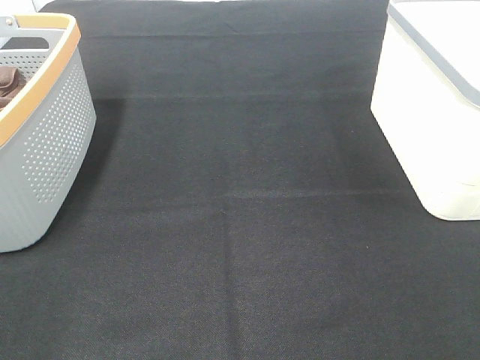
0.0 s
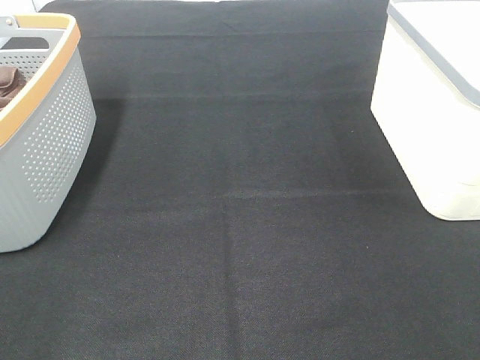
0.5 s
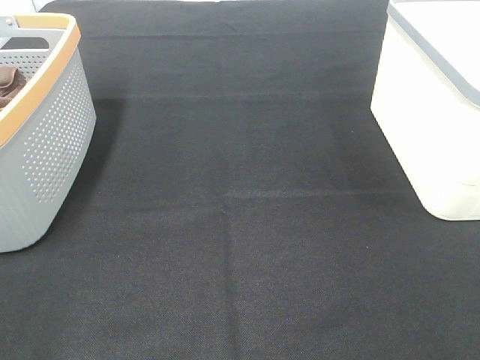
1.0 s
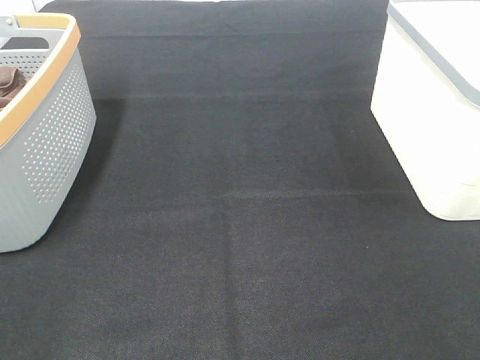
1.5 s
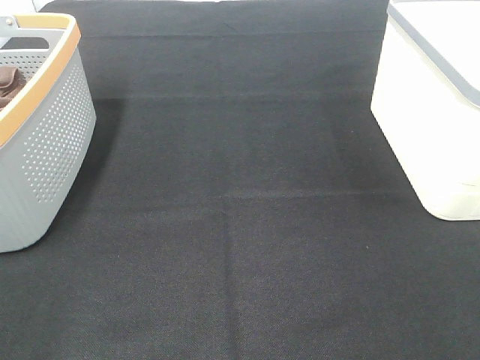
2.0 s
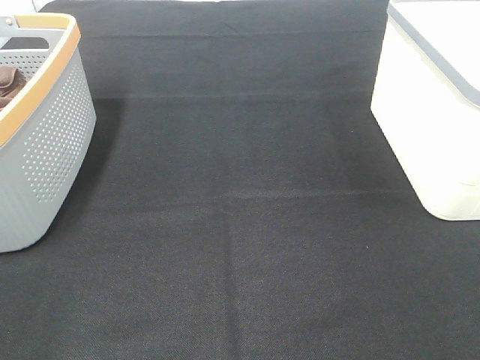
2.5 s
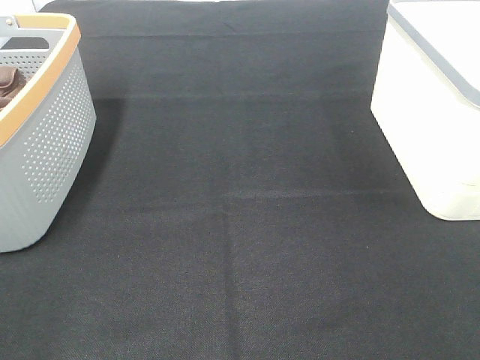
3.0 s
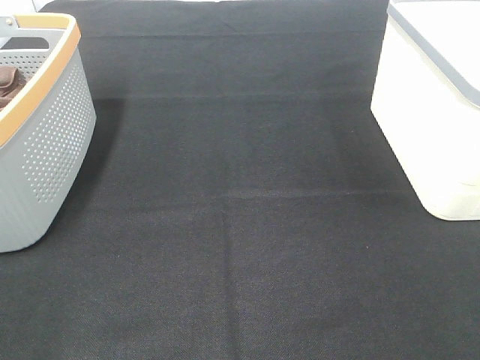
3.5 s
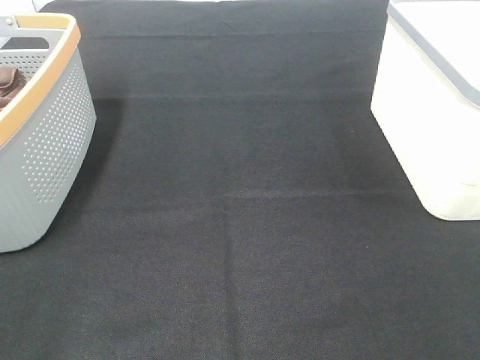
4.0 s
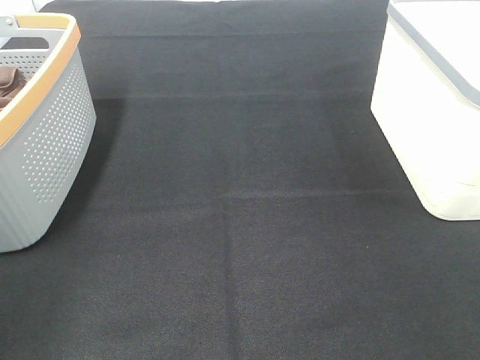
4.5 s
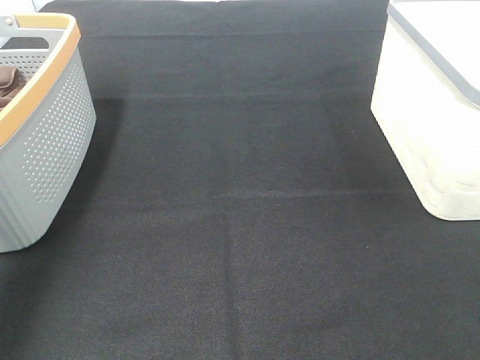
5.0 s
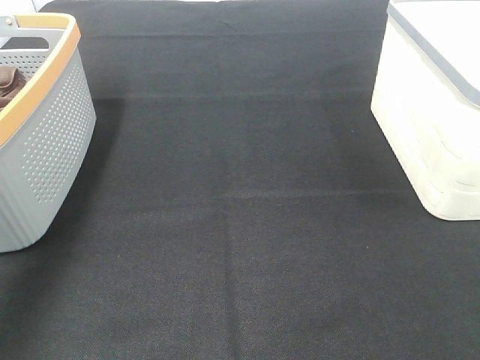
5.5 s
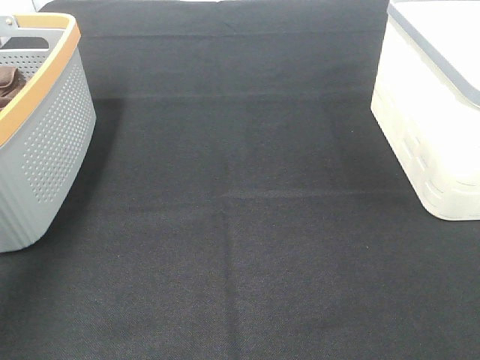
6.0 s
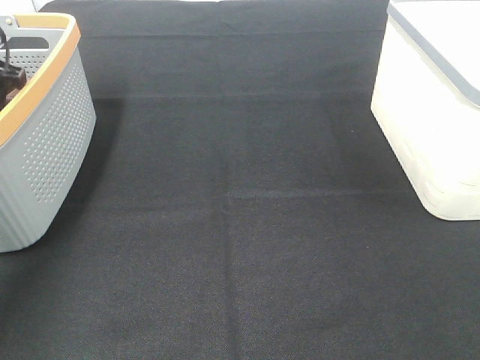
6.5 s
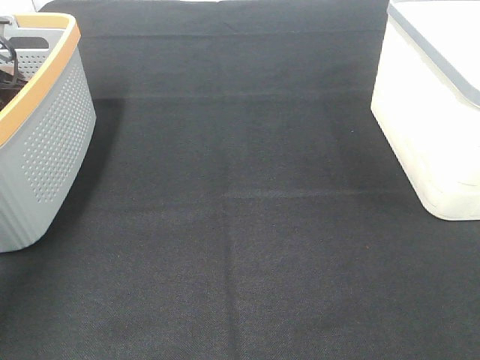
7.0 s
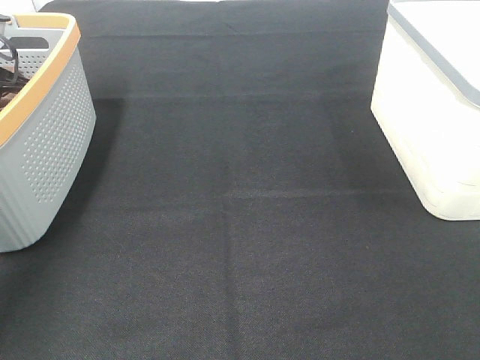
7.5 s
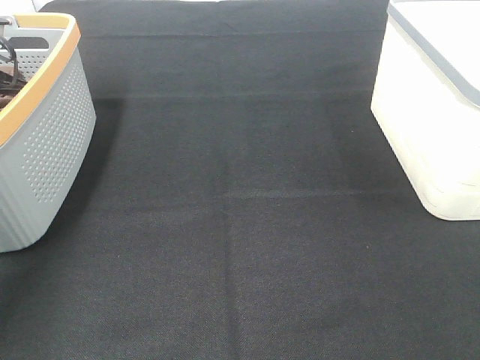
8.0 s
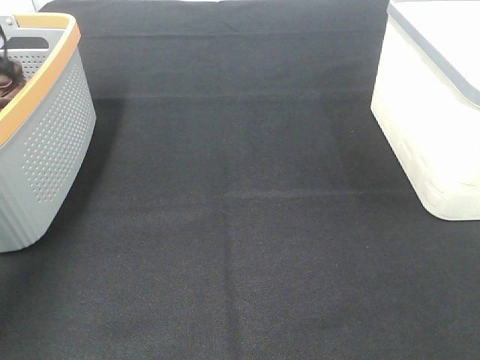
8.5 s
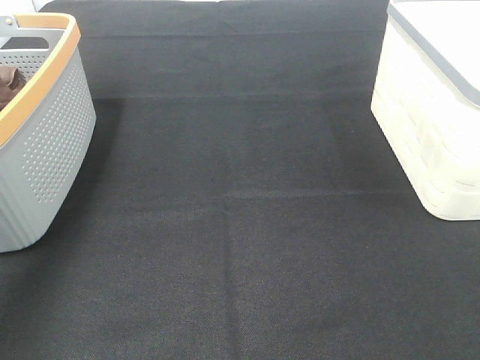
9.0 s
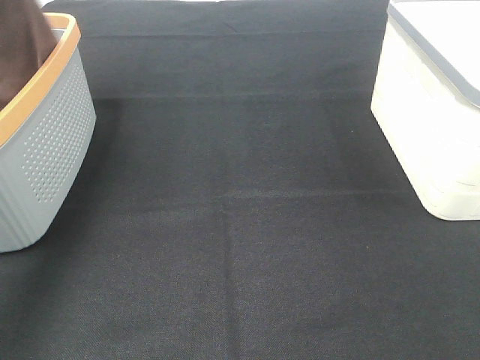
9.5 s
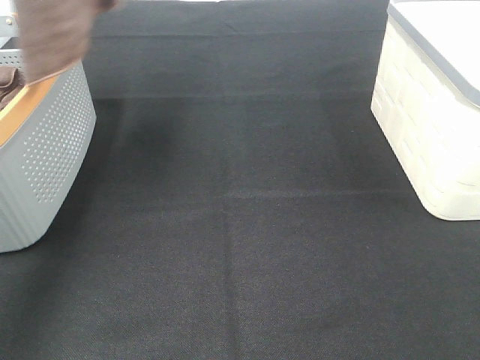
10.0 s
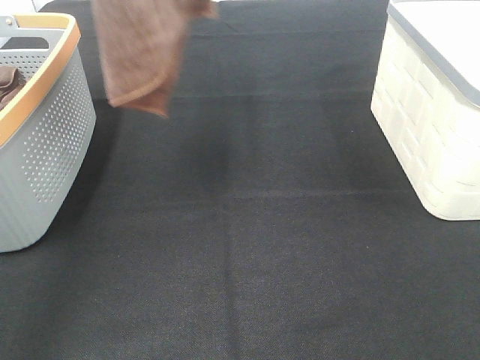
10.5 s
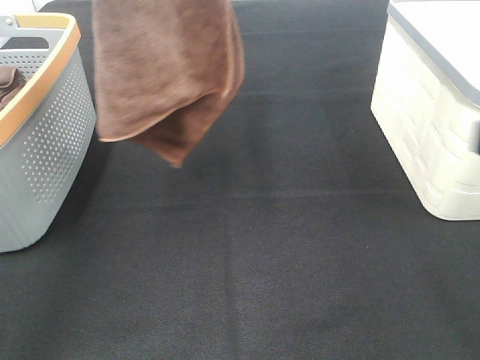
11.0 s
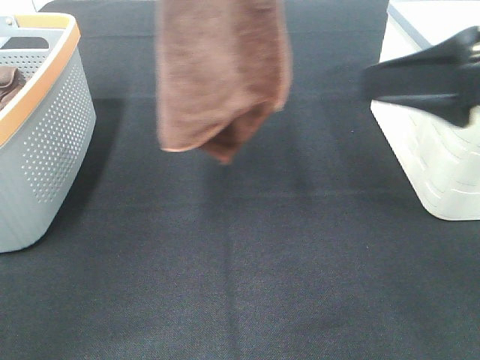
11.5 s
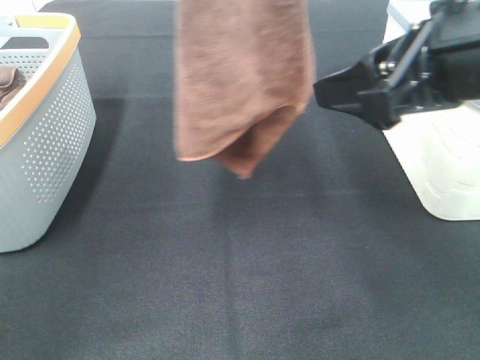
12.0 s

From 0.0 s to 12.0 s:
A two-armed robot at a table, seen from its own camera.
Task of the whole recording: Remove the towel and place it.
From 0.0 s to 2.0 s: Neither gripper changes place.
From 4.0 s to 6.0 s: The left gripper moves forward, approximately 40 cm.
From 8.0 s to 10.0 s: The left gripper goes approximately 35 cm upward.
From 10.0 s to 12.0 s: The left gripper is displaced to the right by approximately 10 cm. The right gripper goes about 25 cm forward and to the left.

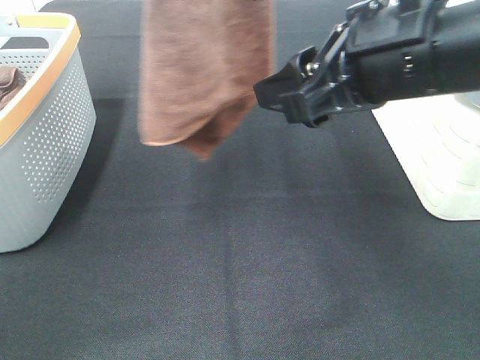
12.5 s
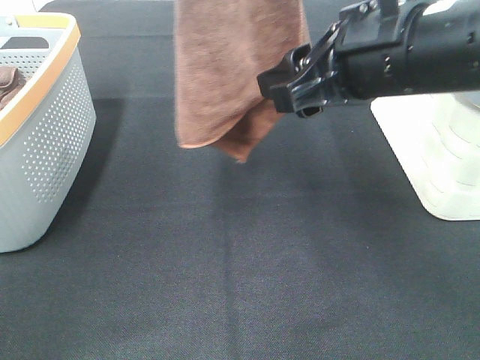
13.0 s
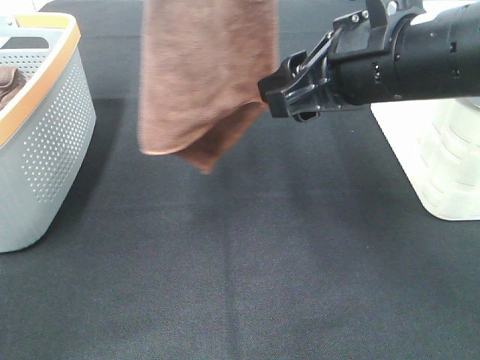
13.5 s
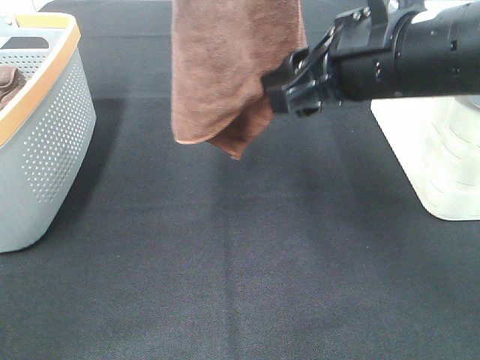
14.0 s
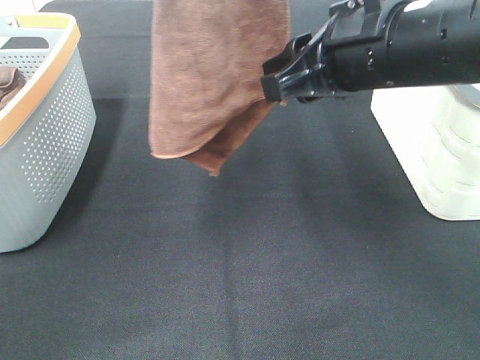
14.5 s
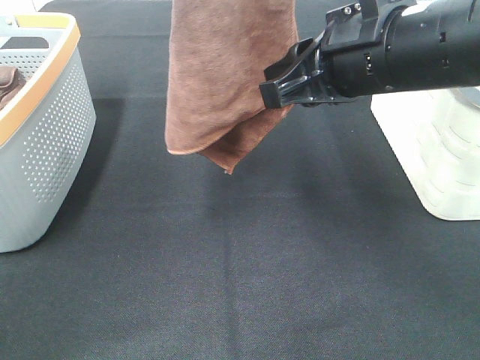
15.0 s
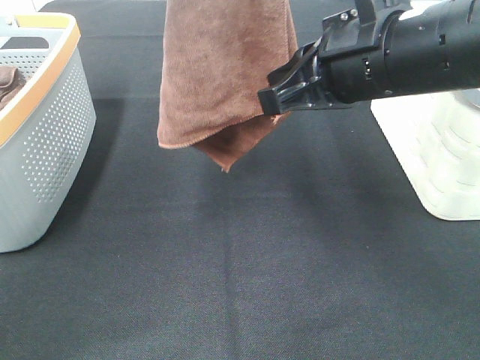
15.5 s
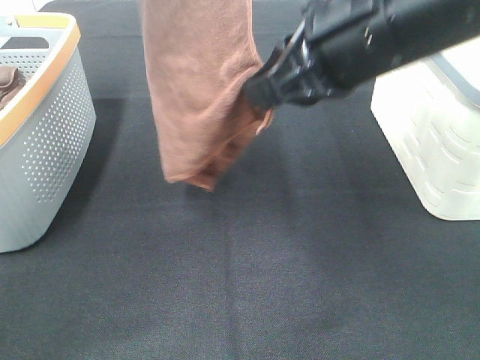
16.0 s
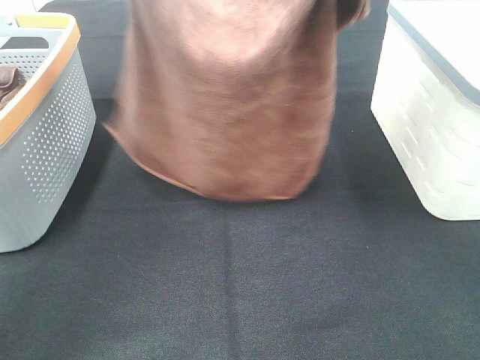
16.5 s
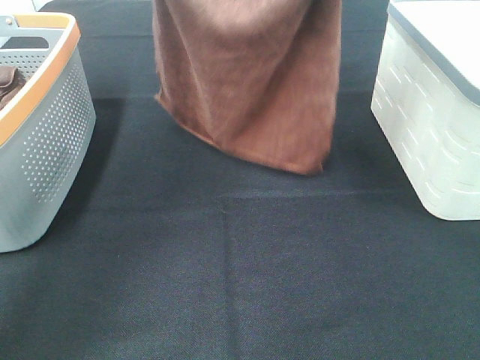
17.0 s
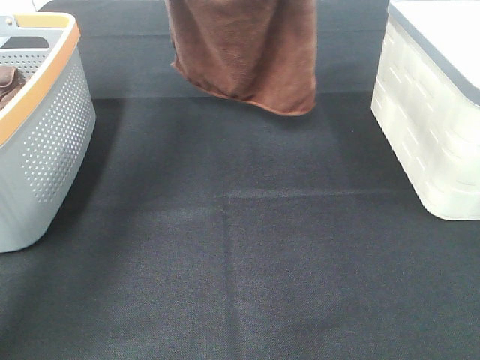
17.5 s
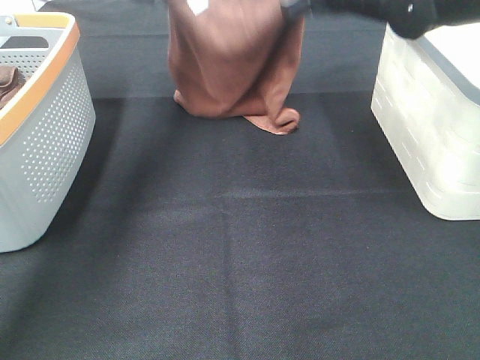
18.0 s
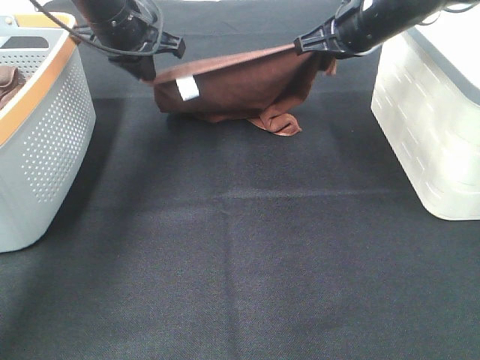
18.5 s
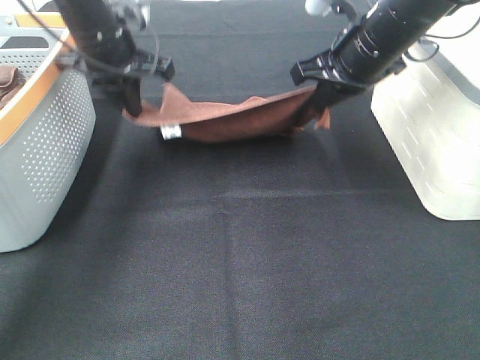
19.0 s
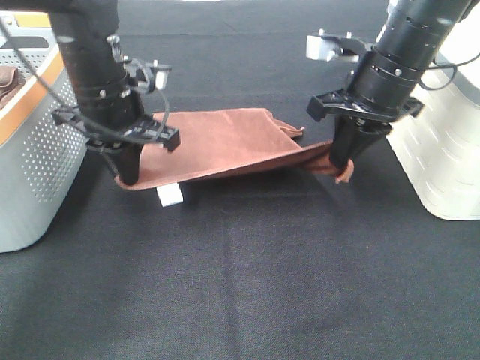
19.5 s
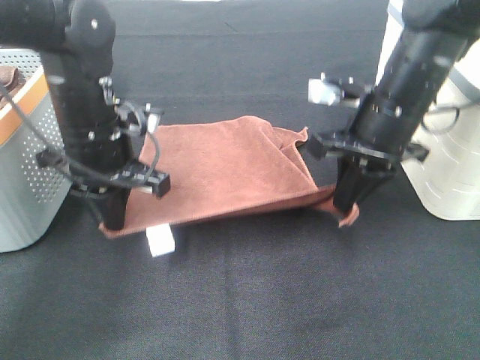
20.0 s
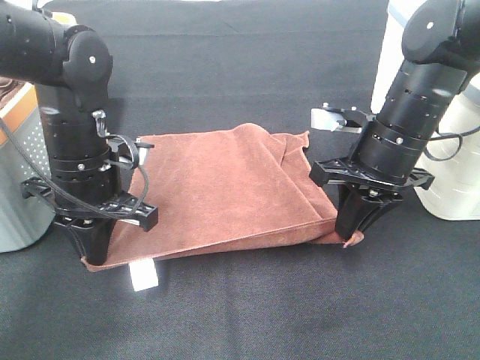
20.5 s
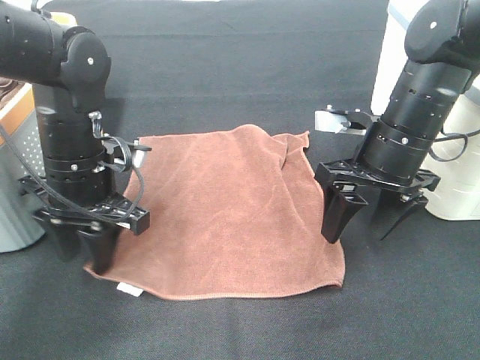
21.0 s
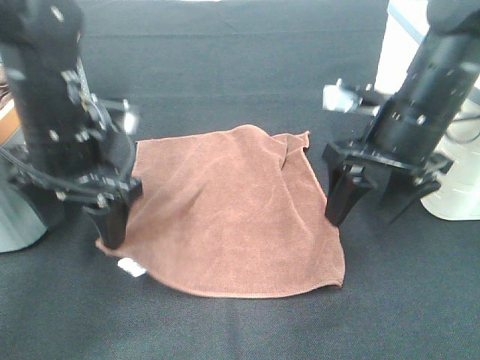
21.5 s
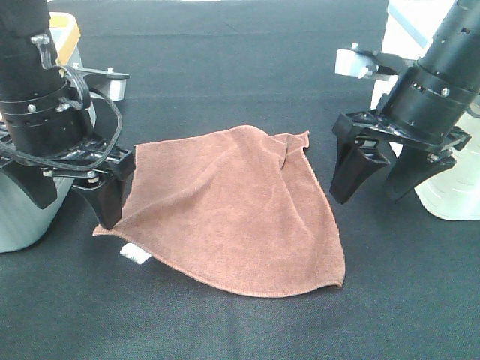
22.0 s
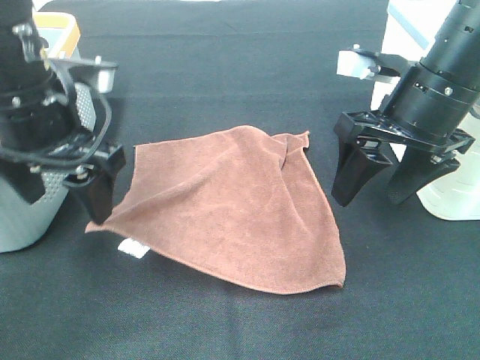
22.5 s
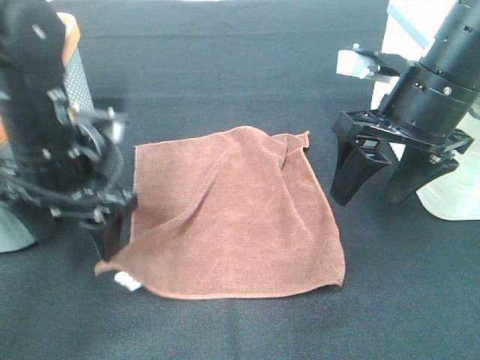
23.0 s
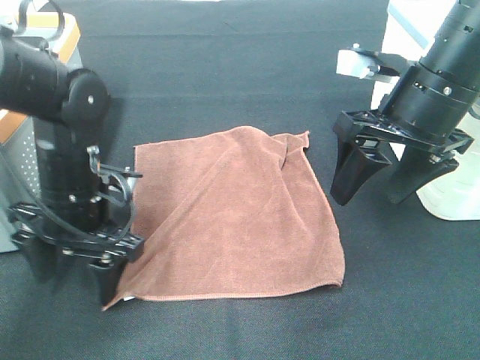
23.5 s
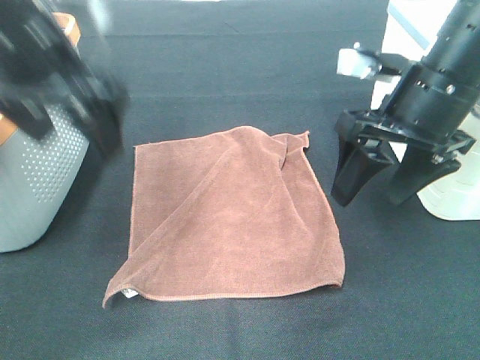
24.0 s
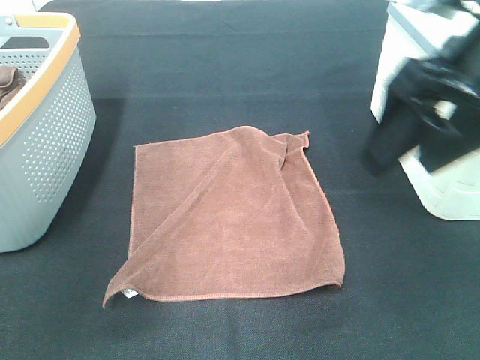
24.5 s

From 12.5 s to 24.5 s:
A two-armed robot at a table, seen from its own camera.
Task of the whole recording: Remove the towel and place it.
Step, from 13.5 s to 16.5 s: Right hand: spread the brown towel flat on the table.
Step, from 13.5 s to 19.0 s: Left hand: spread the brown towel flat on the table.
From 12.5 s to 14.5 s: The grippers make only small movements.
From 14.5 s to 16.5 s: The left gripper travels downward and forward by some 15 cm. Meanwhile the right gripper goes approximately 10 cm upward, and closes up.
From 16.5 s to 18.5 s: The left gripper heads downward and forward, covering approximately 20 cm; the right gripper is displaced forward and downward by approximately 20 cm.
From 18.5 s to 20.5 s: Both grippers travel together backward and downward, some 15 cm.
From 20.5 s to 22.5 s: The grippers both shift upward by some 10 cm. The right gripper opens its fingers, while the left gripper opens up.
From 22.5 s to 24.5 s: The right gripper goes some 10 cm upward and backward. The left gripper shifts approximately 20 cm upward and backward.

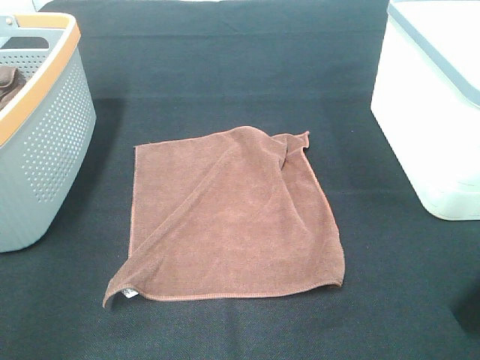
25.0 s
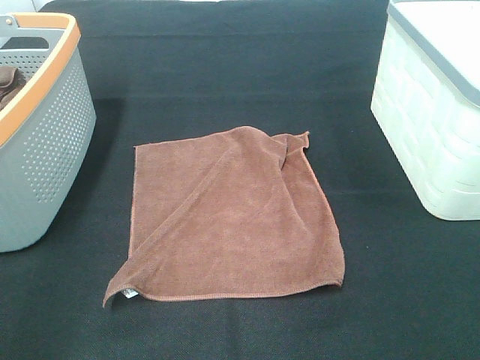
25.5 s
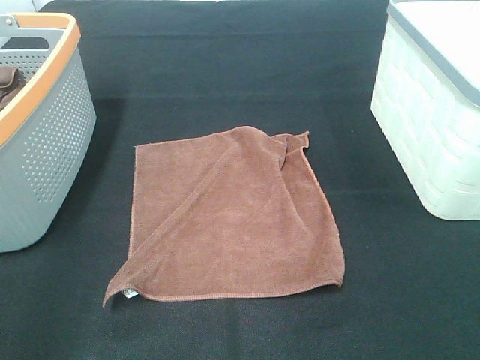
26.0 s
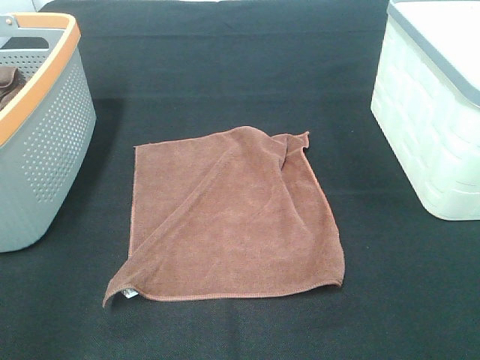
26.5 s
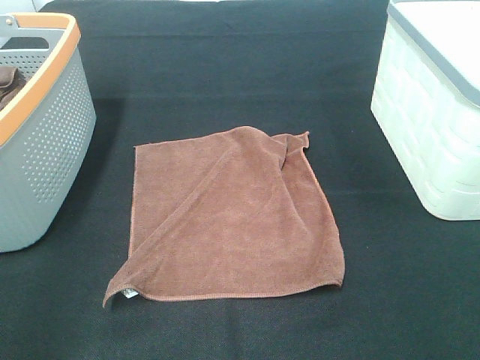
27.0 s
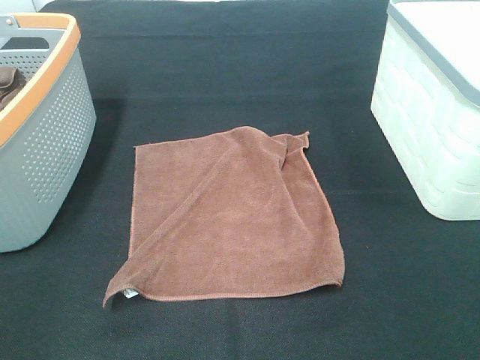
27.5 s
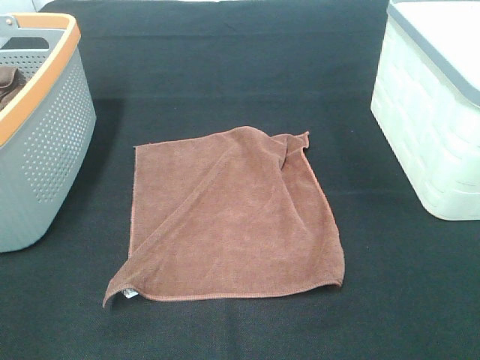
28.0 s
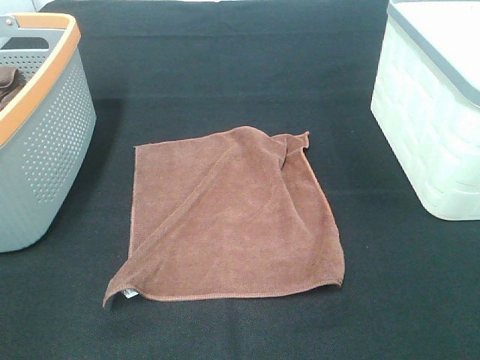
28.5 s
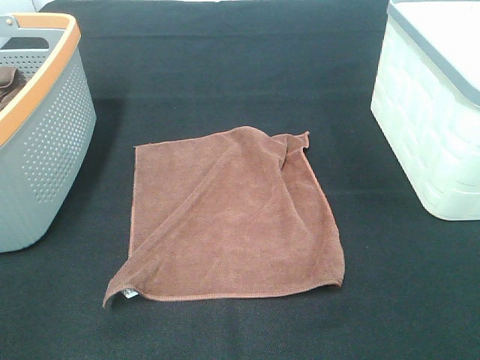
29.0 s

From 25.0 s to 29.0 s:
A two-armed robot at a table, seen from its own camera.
Task of the whole recording: Remove the towel and place it.
From 25.0 s to 27.0 s: The left gripper changes place by some 5 cm. Meanwhile the right gripper is displaced backward and to the right by approximately 10 cm.
